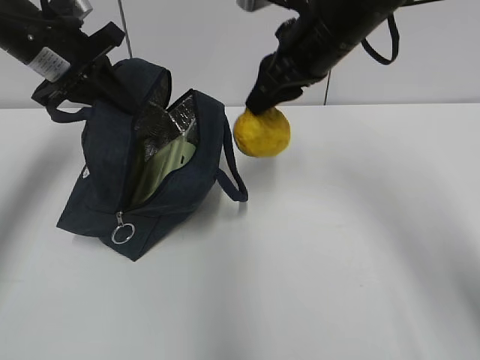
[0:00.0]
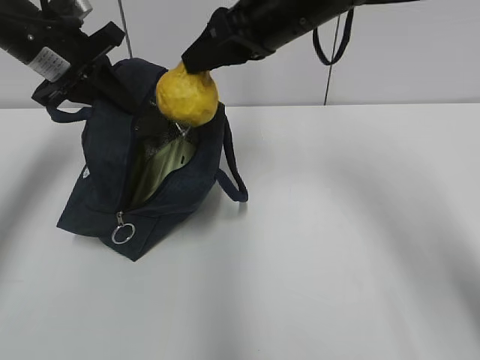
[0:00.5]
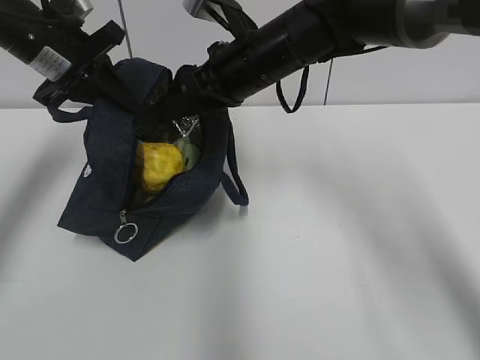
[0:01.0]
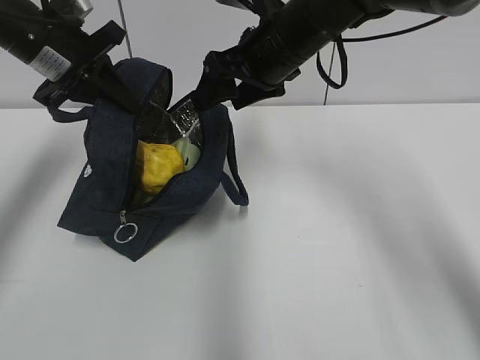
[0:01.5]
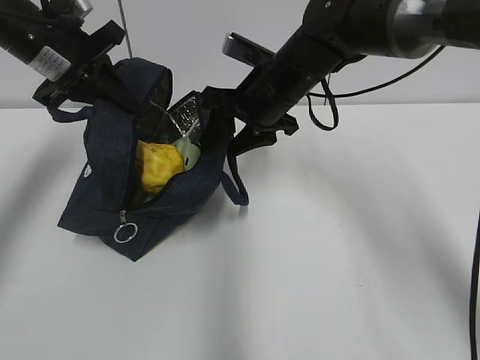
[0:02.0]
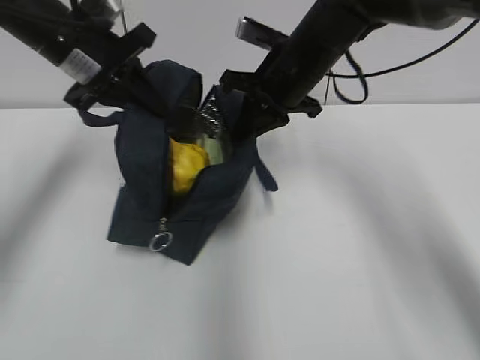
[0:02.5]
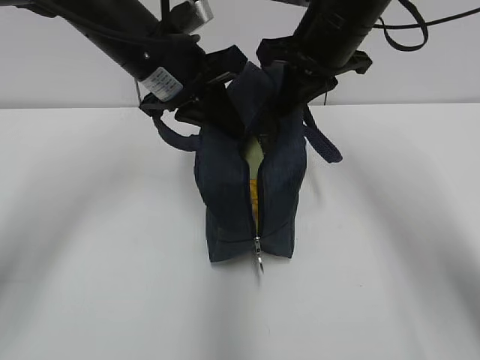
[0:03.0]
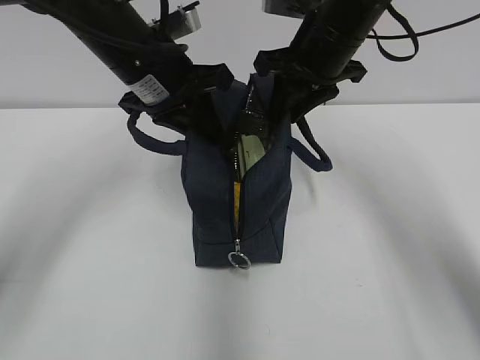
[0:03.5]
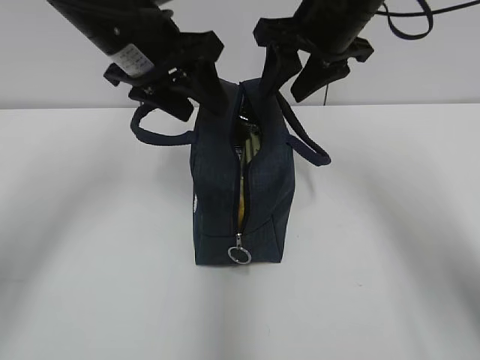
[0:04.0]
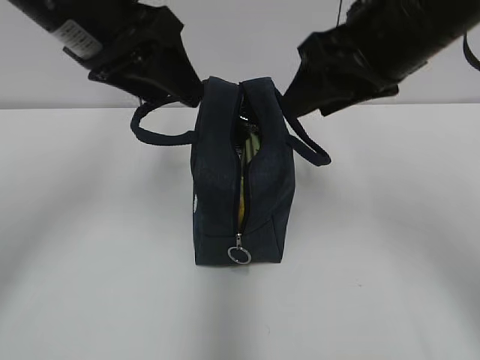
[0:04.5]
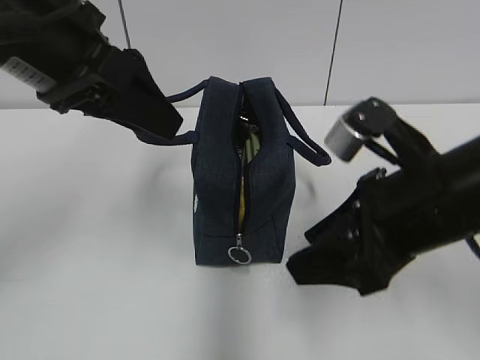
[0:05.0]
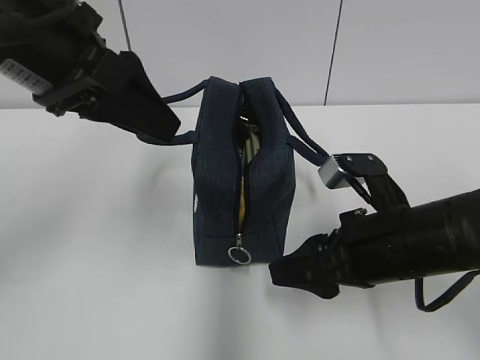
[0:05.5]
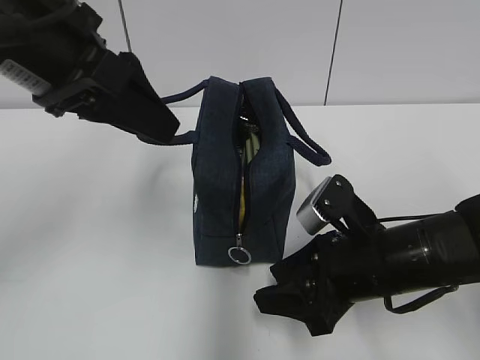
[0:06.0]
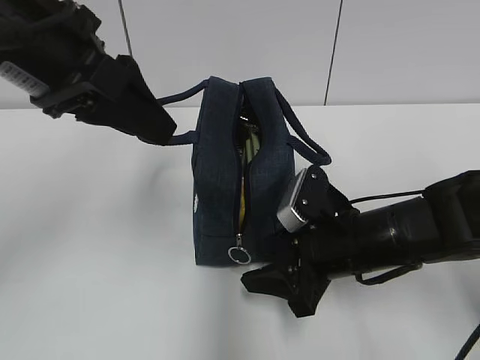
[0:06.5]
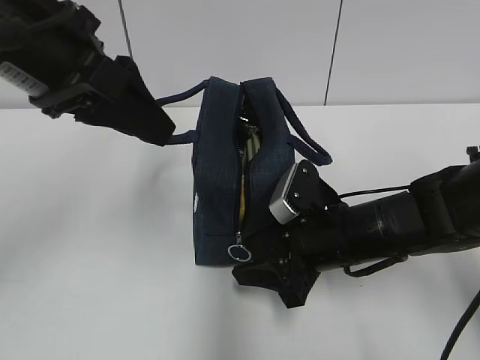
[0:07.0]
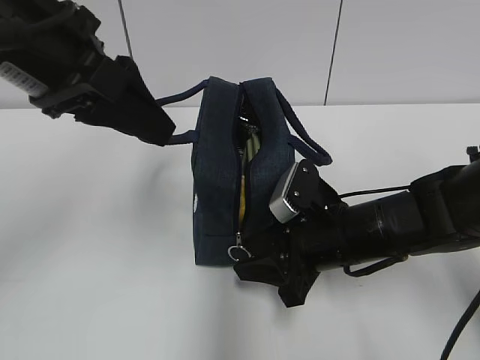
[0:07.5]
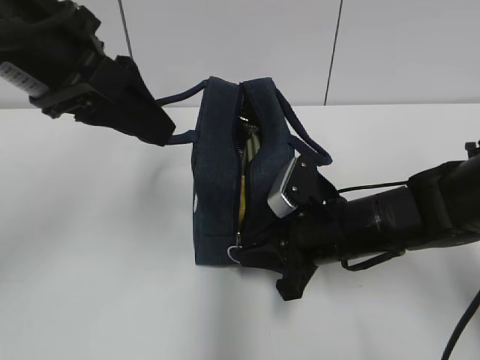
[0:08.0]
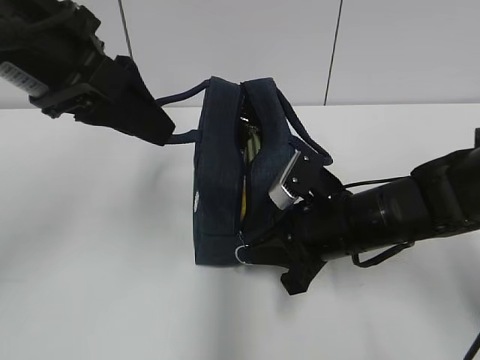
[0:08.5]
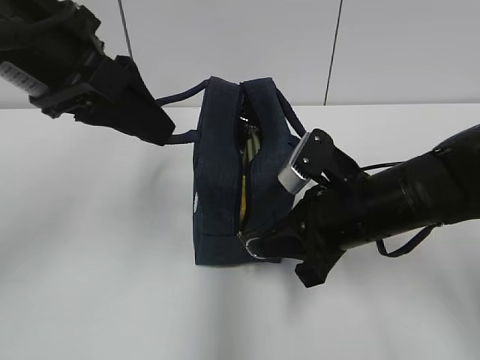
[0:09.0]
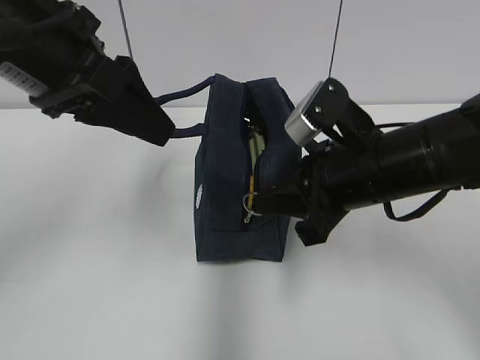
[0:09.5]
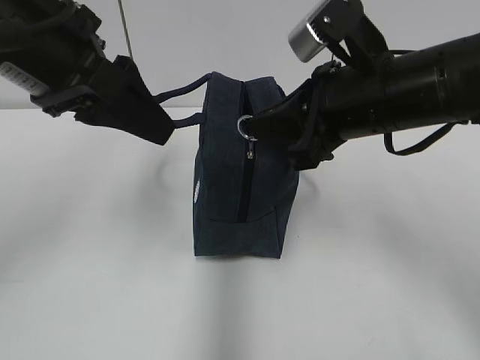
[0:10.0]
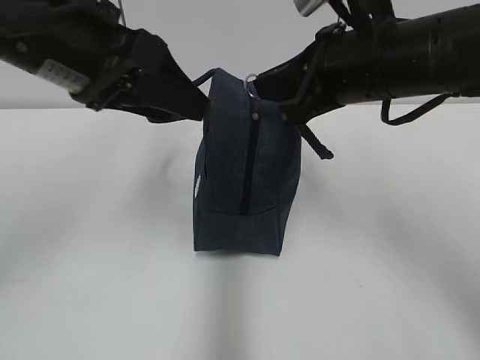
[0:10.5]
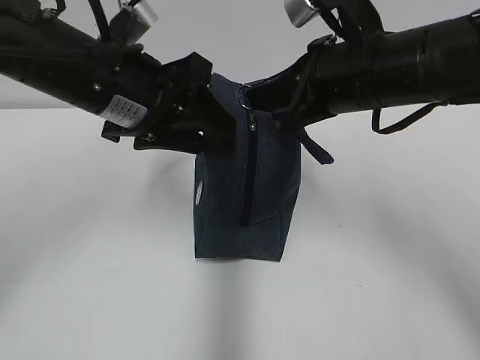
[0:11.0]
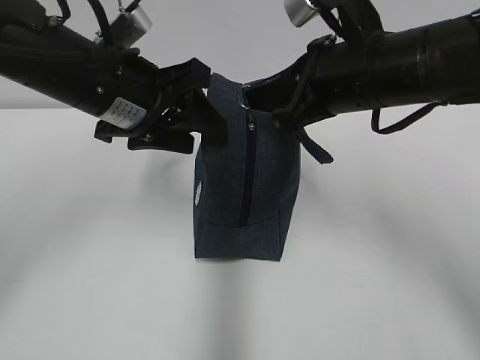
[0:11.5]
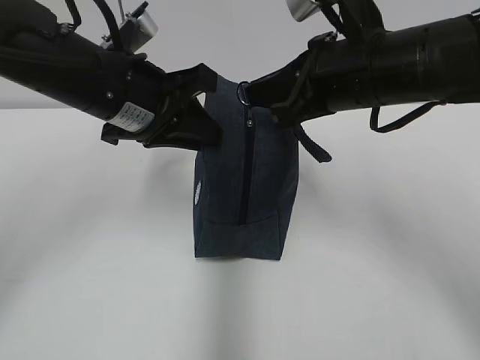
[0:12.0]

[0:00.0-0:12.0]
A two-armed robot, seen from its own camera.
0:00.0 to 0:02.0: The right gripper shifts about 5 cm downward.
0:02.0 to 0:04.0: The right gripper travels upward and to the right by about 10 cm, and closes, then opens again. The left gripper is displaced to the right by about 10 cm, and opens.
0:04.0 to 0:06.0: The left gripper travels backward by about 10 cm; the right gripper moves downward and backward, approximately 25 cm.
0:06.0 to 0:08.0: The right gripper moves approximately 5 cm, and closes.
0:08.0 to 0:10.0: The right gripper travels upward by some 15 cm.
0:10.0 to 0:12.0: The left gripper is displaced downward and forward by about 10 cm, and closes up.

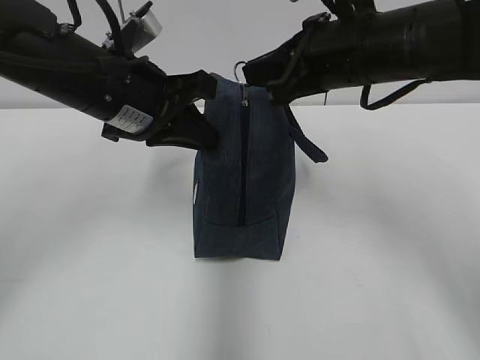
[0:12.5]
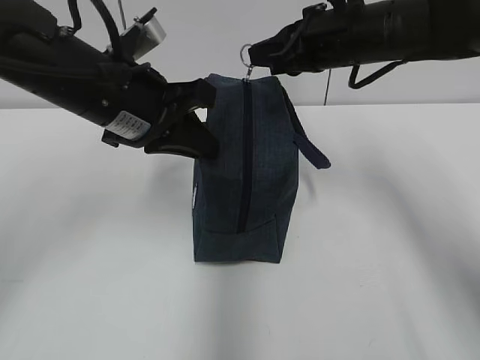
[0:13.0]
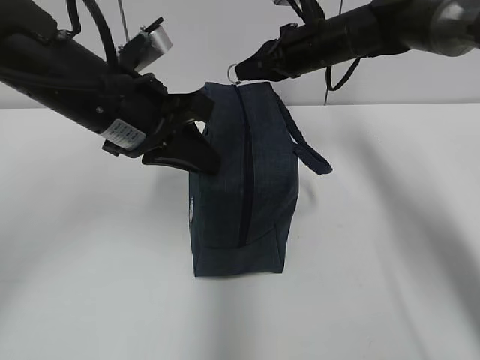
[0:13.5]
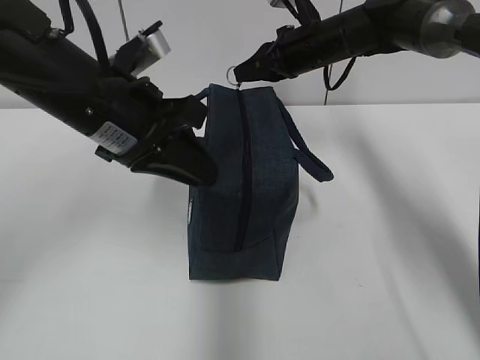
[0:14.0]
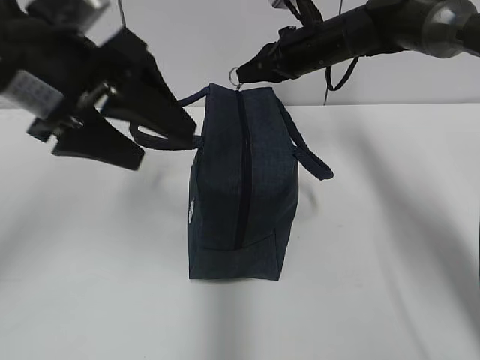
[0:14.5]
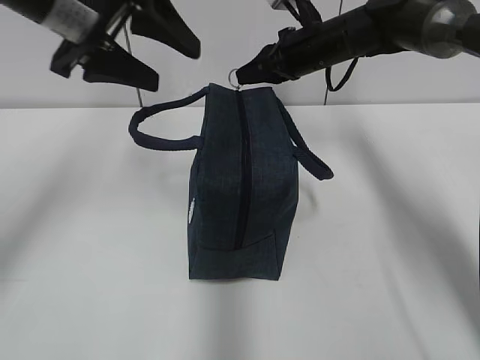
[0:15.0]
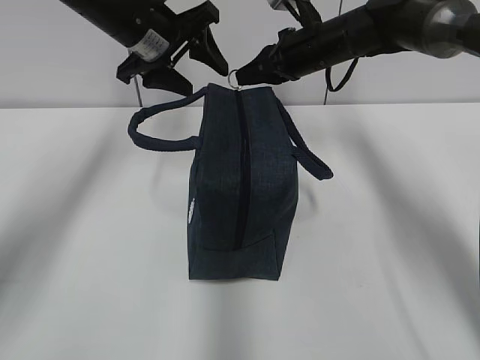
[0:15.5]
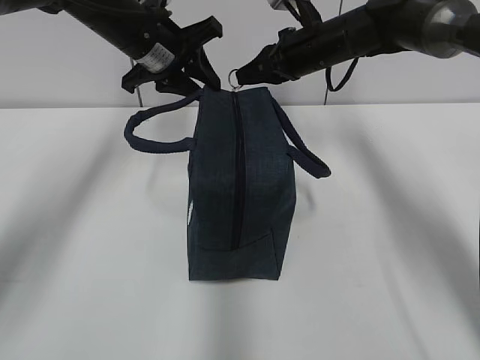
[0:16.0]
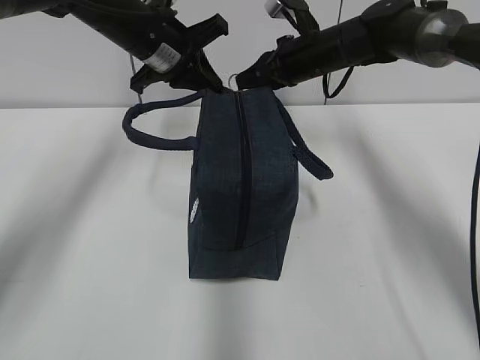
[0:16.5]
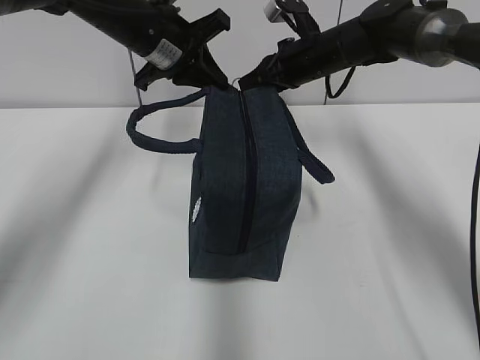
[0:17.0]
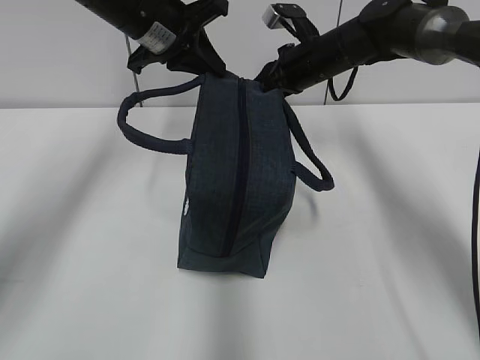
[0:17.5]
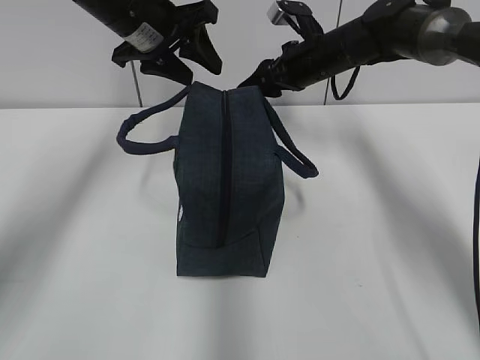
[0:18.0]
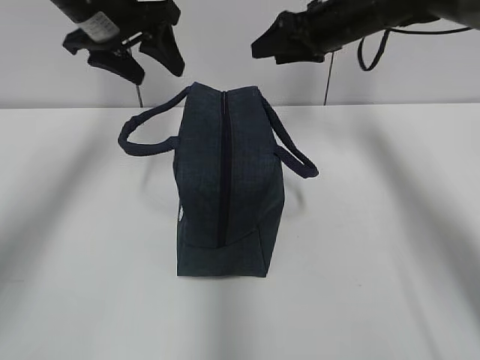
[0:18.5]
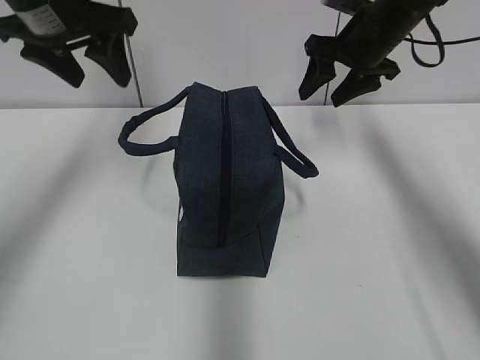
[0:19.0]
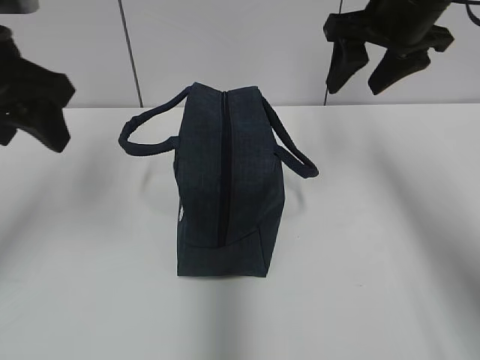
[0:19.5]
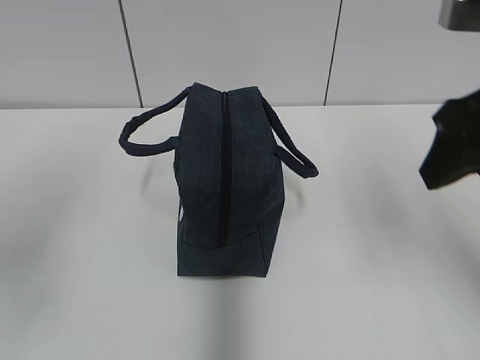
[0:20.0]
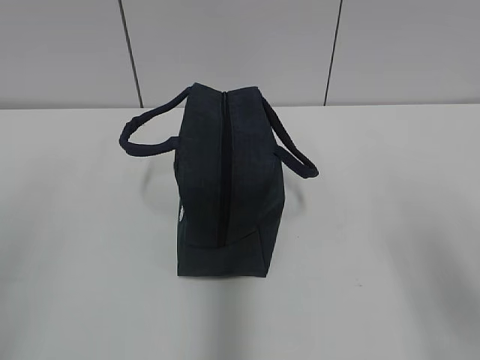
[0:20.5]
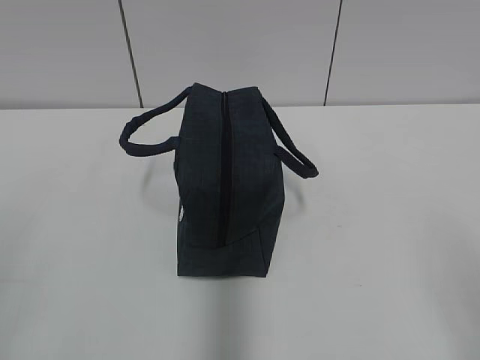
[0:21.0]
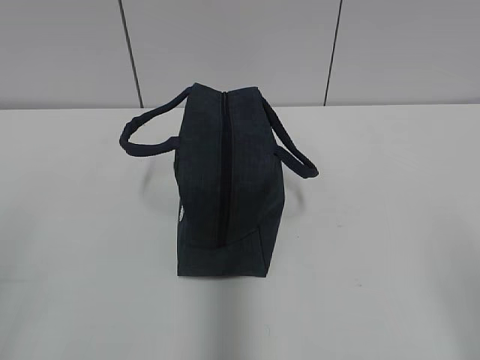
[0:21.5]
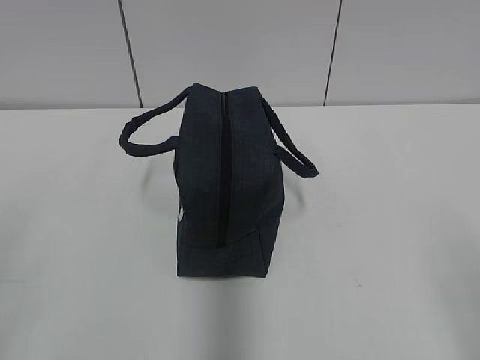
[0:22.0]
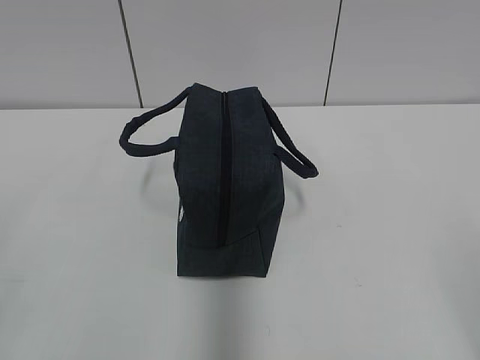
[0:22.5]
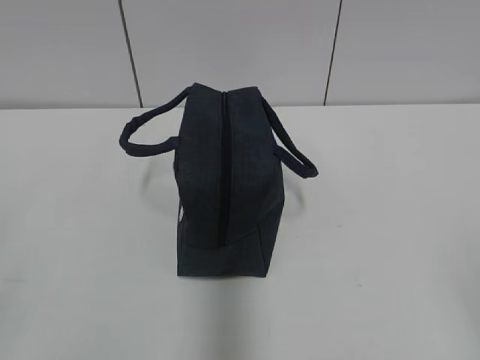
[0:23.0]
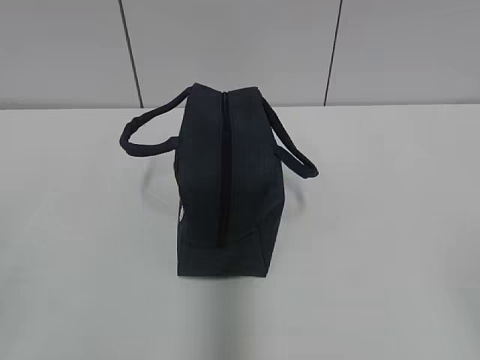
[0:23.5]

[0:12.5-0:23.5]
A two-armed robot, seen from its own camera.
0:12.5 to 0:14.5: The right gripper shifts approximately 20 cm forward. Meanwhile the left gripper is displaced backward by approximately 5 cm, and opens.
0:14.5 to 0:16.0: The left gripper shifts roughly 20 cm forward, and closes.
0:16.0 to 0:18.0: The right gripper opens up. The left gripper closes, then opens again.
0:18.0 to 0:20.0: The left gripper moves backward and to the left, roughly 30 cm. The right gripper goes roughly 30 cm backward and upward.
0:20.0 to 0:21.5: The right gripper moves backward, some 20 cm.
